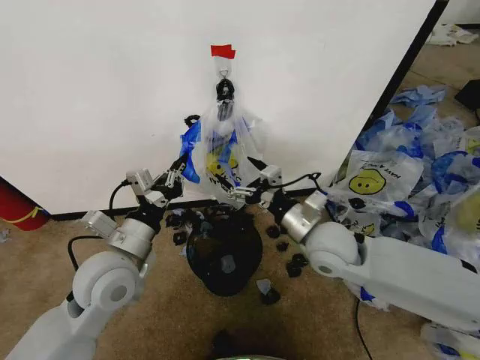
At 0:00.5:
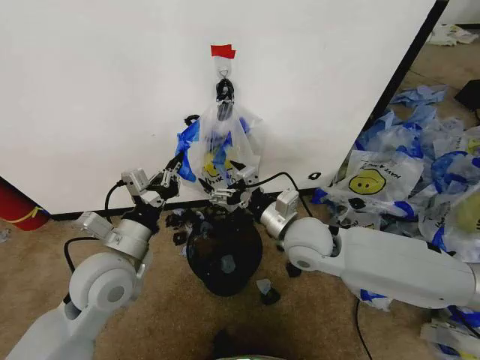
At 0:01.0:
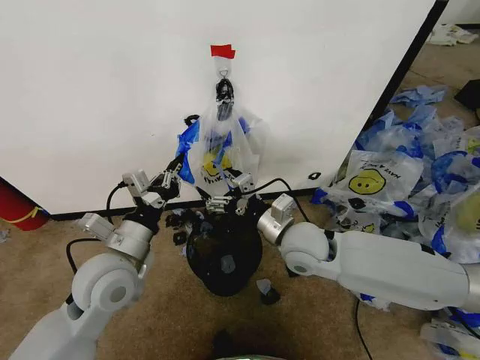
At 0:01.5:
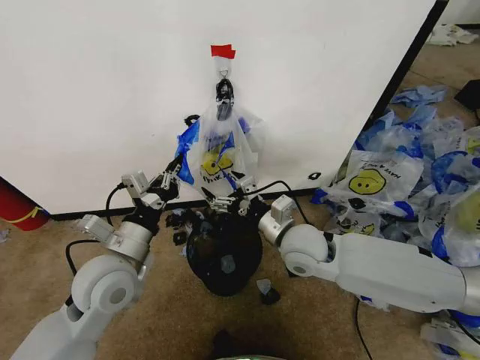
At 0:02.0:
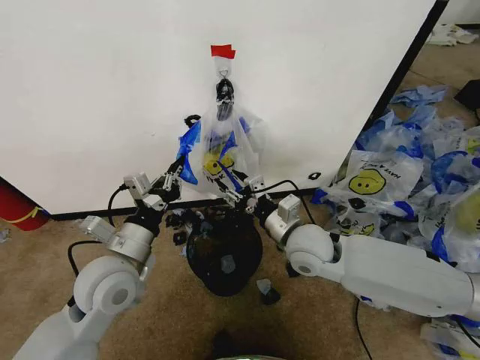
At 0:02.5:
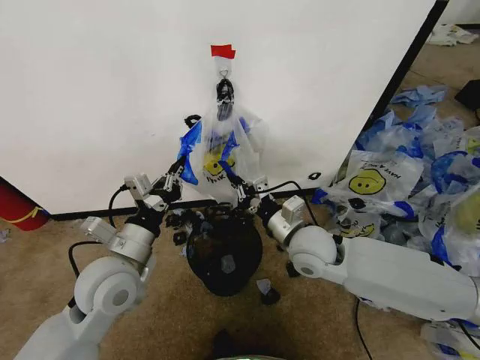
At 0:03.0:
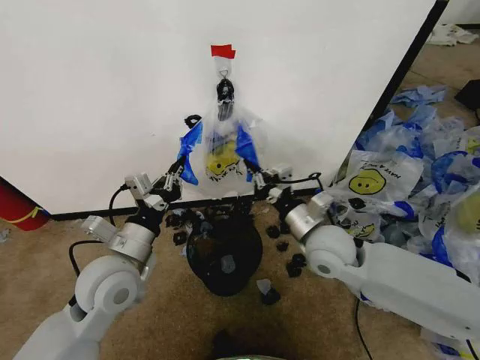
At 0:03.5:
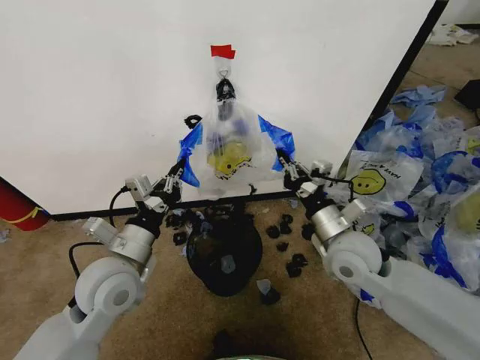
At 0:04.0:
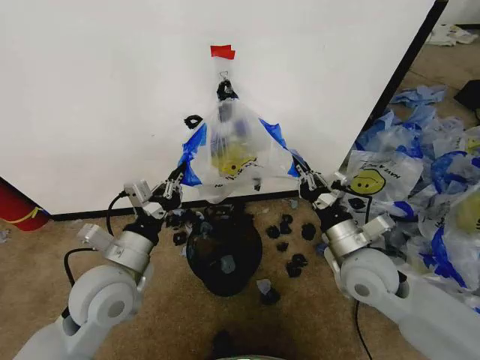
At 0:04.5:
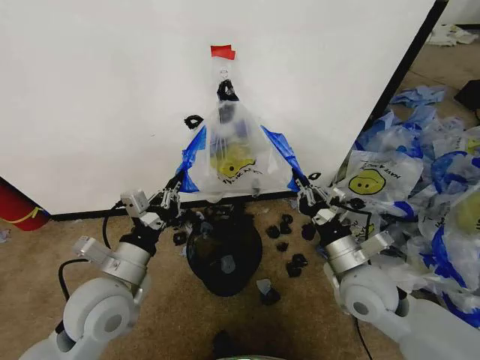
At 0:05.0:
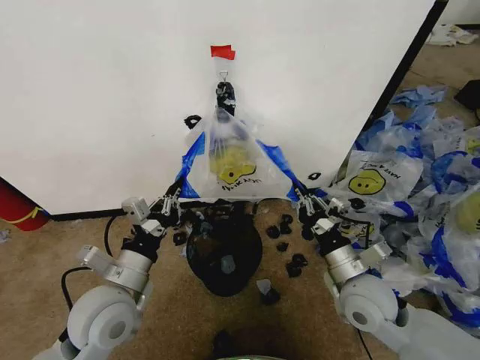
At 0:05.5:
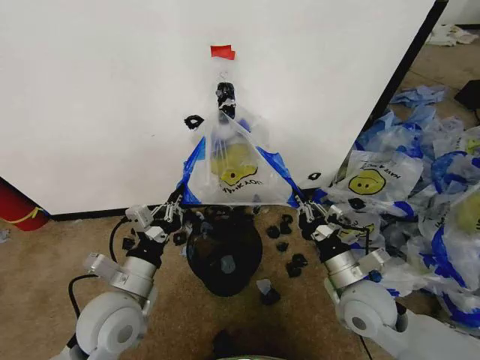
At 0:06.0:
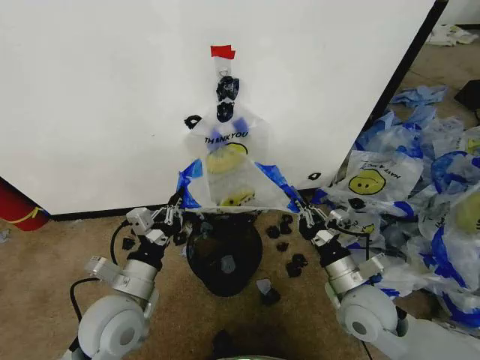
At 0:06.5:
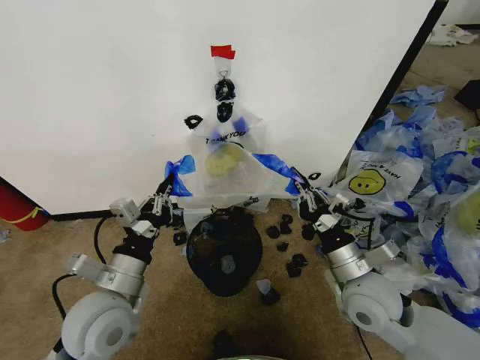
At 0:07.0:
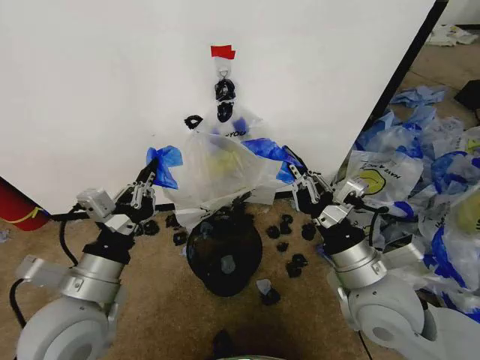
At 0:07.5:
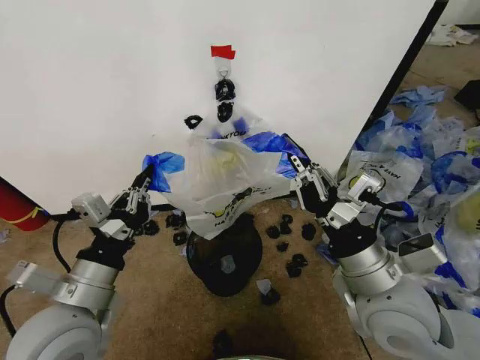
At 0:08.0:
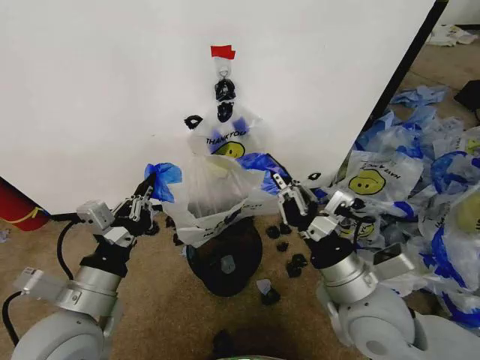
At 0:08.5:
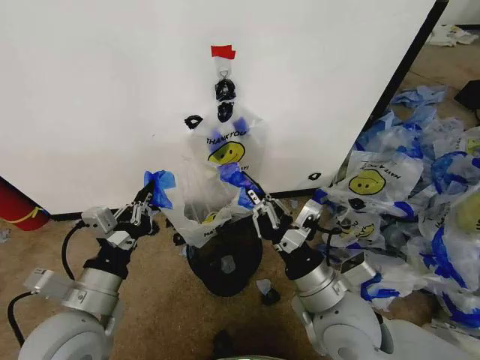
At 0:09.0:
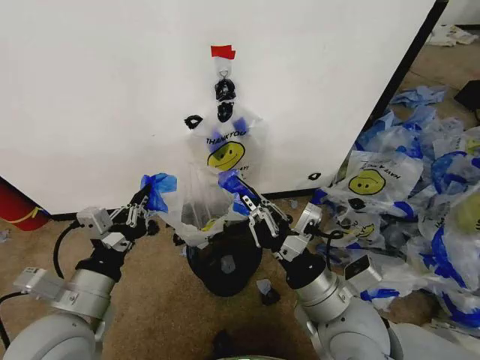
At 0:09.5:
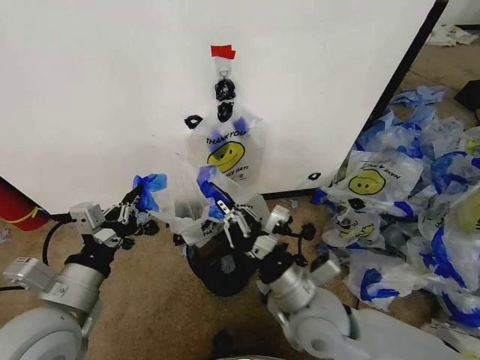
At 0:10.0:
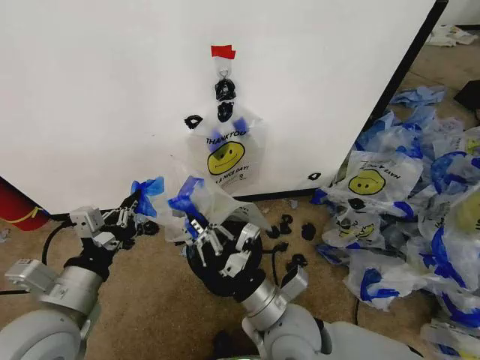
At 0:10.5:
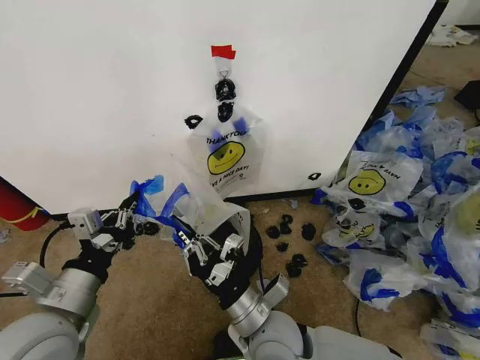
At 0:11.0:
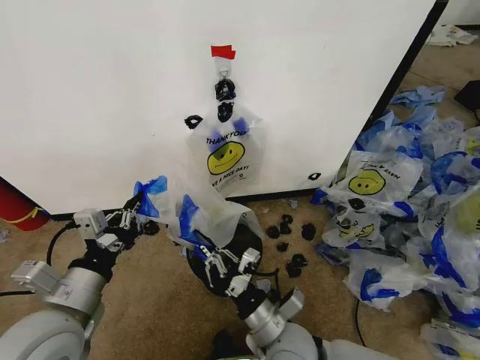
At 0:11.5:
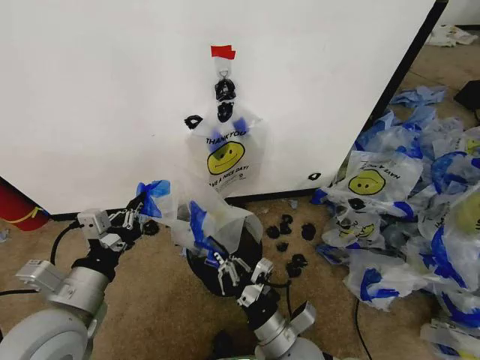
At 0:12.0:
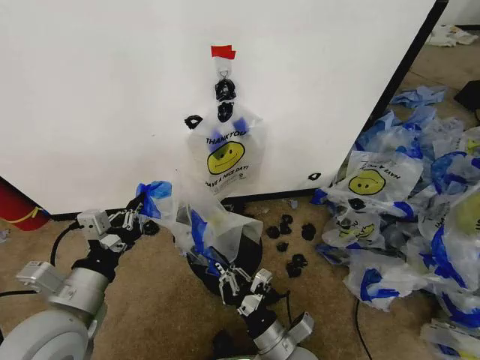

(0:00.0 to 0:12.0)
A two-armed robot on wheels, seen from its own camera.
Task of the whole recording: Pick up the garbage bag from the wall and place it over the trash bin.
0:00.0 - 0:02.0: The right gripper closes.
0:02.0 - 0:04.0: The right gripper moves to the right and backward, about 10 cm, and closes up.
0:04.0 - 0:06.0: The left gripper moves about 5 cm. Meanwhile the right gripper heads downward, covering roughly 5 cm.
0:06.0 - 0:08.0: The right gripper moves upward, some 10 cm; the left gripper shifts about 5 cm upward.
0:08.0 - 0:10.0: The right gripper is displaced to the left and downward by about 15 cm.
0:10.0 - 0:12.0: The right gripper goes some 10 cm downward.

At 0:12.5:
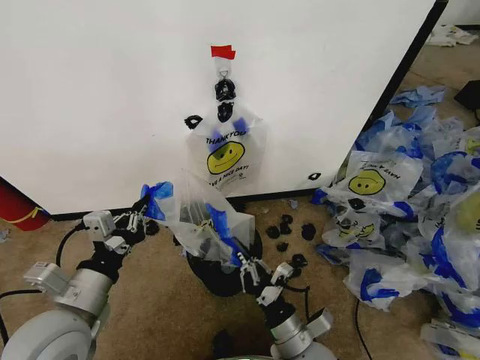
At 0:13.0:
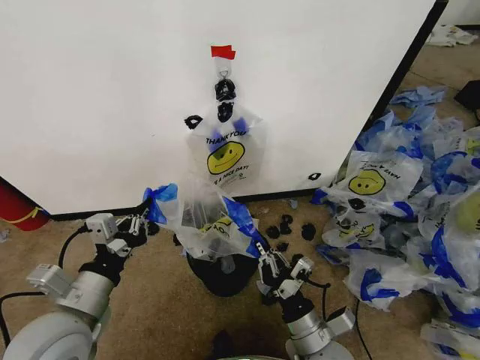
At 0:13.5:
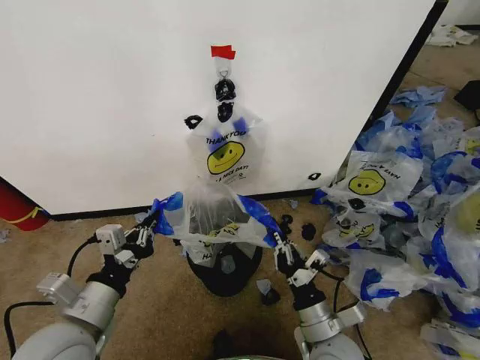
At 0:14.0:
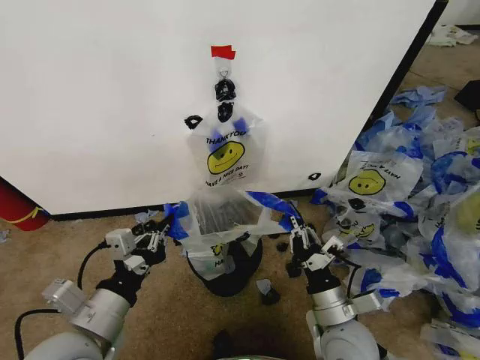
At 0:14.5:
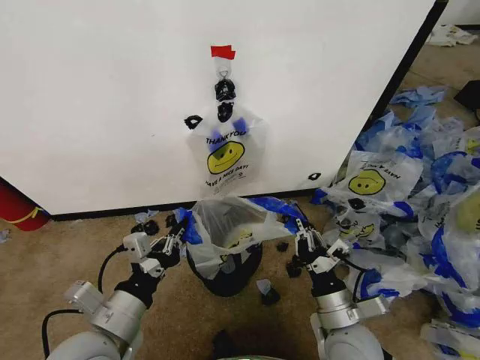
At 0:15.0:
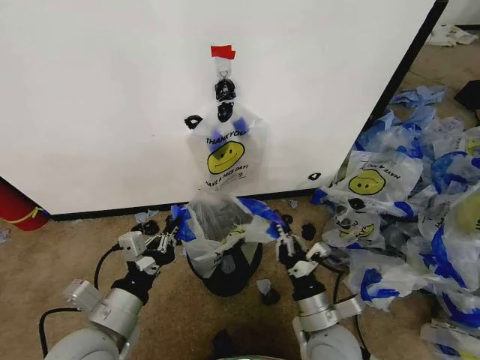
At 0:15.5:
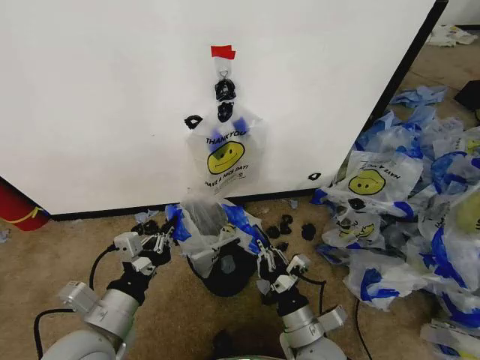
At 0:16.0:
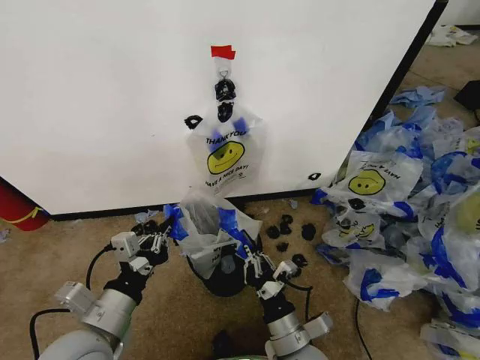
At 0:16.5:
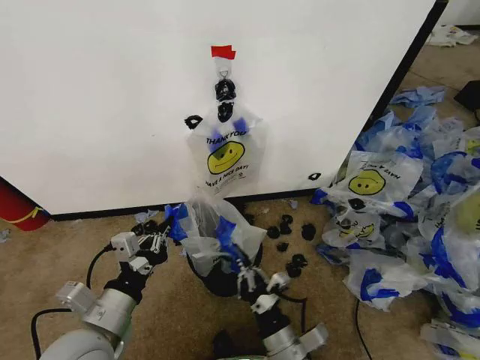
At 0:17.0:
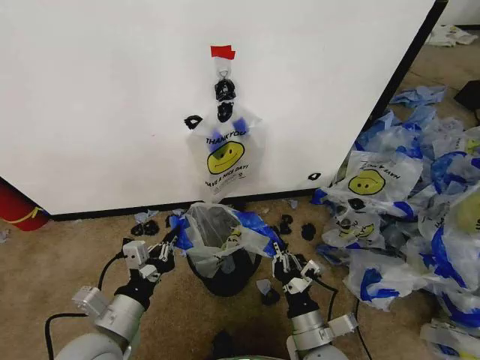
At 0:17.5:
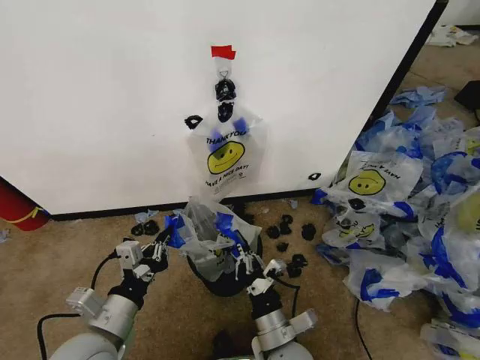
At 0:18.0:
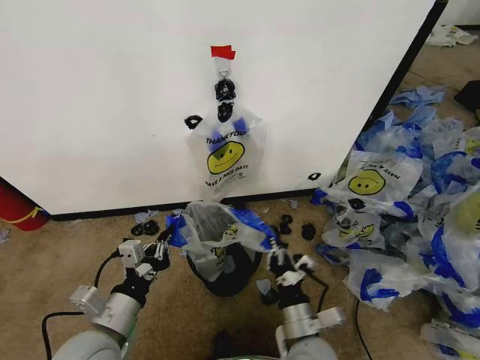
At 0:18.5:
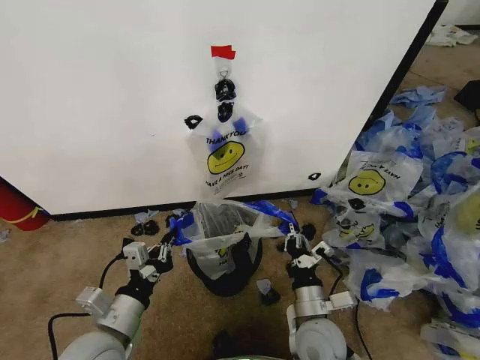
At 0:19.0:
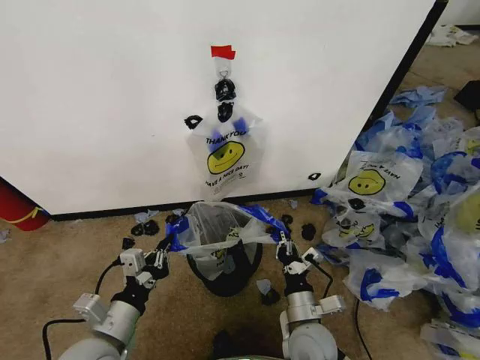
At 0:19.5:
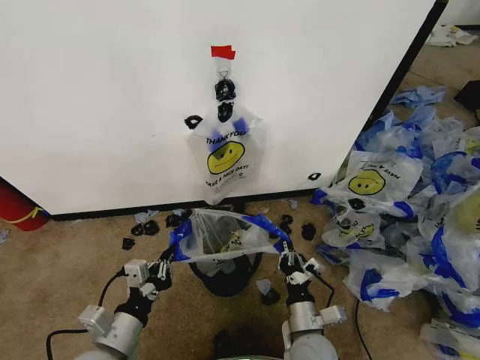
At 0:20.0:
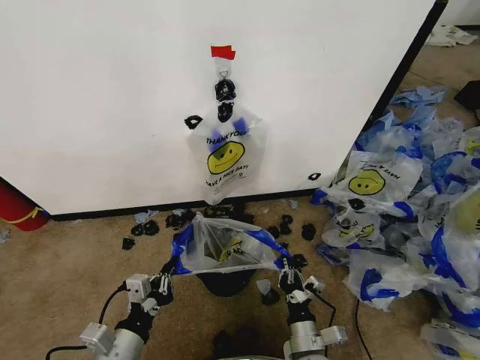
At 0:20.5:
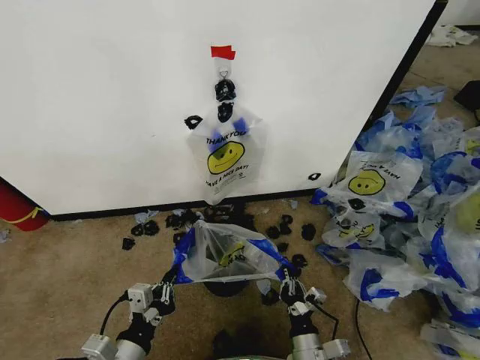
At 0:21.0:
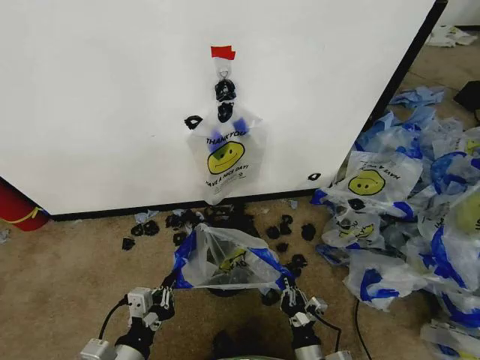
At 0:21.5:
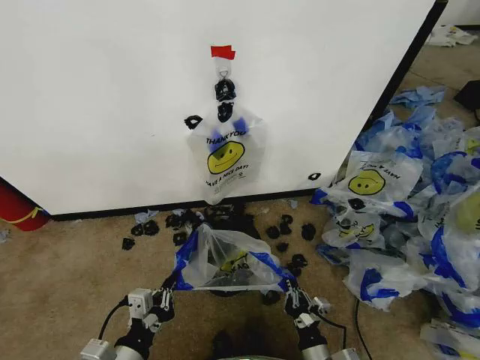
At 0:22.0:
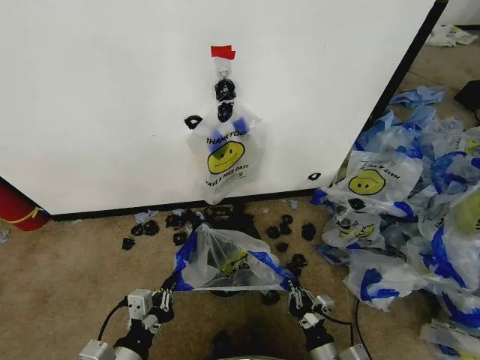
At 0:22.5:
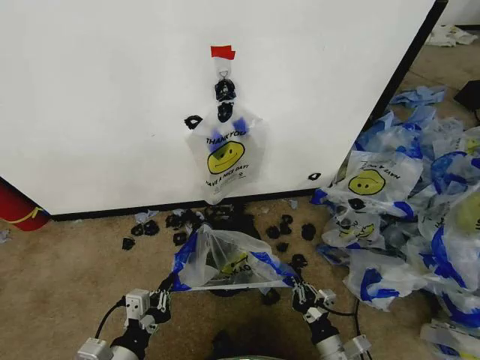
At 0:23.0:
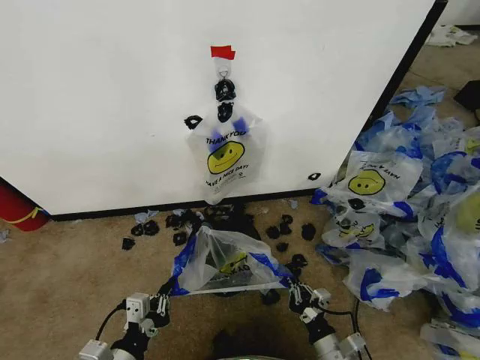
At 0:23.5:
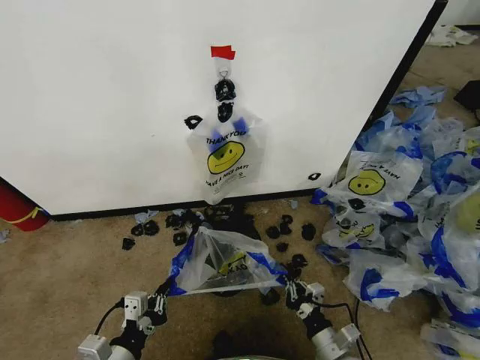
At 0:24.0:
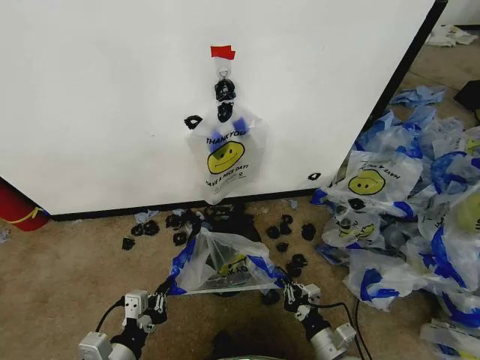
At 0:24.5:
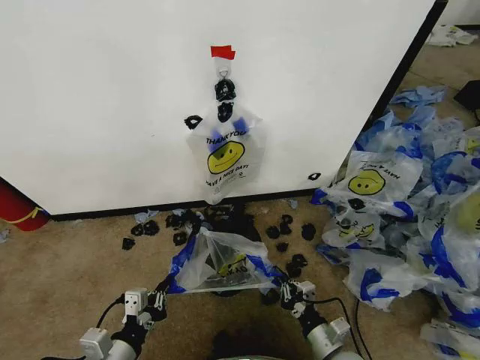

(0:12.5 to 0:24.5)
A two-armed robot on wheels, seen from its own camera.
Task of the whole recording: Pick up the garbage bag from the wall and place it over the trash bin.
0:12.5 - 0:14.5: The left gripper moves about 5 cm; the right gripper is displaced to the right by roughly 5 cm.
0:14.5 - 0:16.5: The right gripper heads to the left and backward, covering approximately 10 cm.
0:16.5 - 0:18.5: The right gripper moves forward, approximately 5 cm.
0:18.5 - 0:20.5: The right gripper shifts about 10 cm downward and backward, while the left gripper travels backward by about 5 cm.
0:20.5 - 0:22.5: The right gripper travels to the right by some 10 cm.
0:22.5 - 0:24.5: The grippers make only small movements.

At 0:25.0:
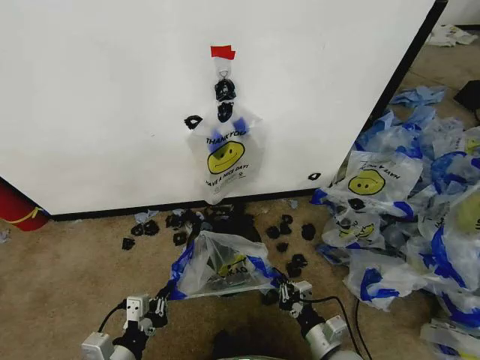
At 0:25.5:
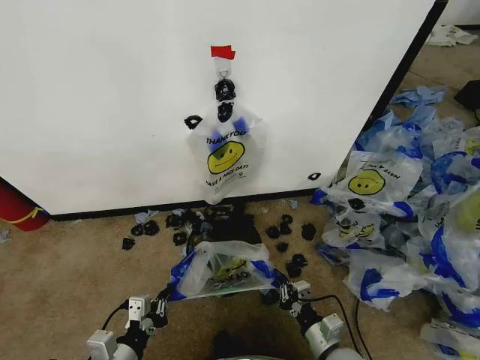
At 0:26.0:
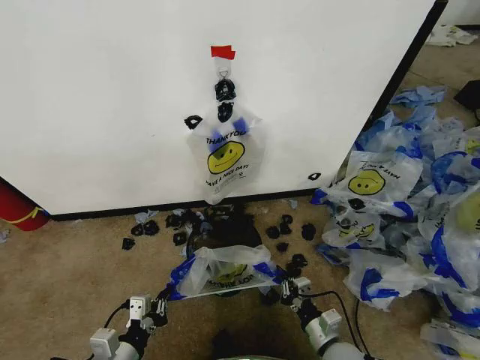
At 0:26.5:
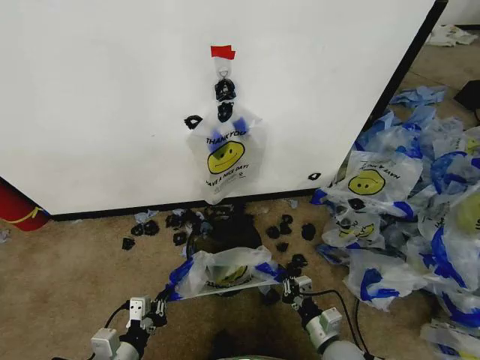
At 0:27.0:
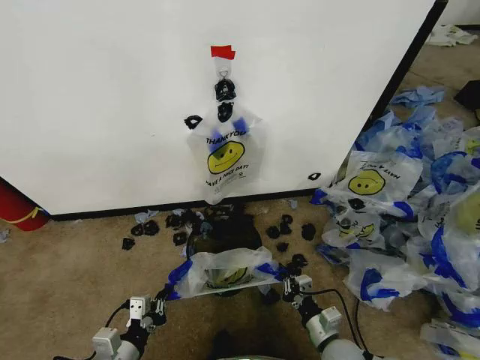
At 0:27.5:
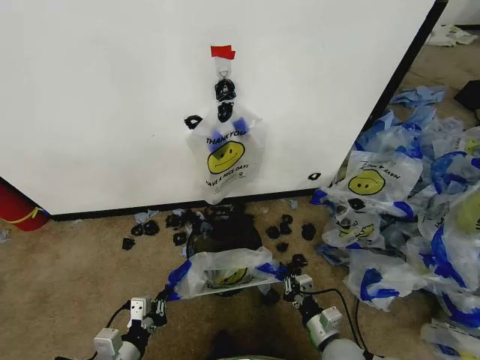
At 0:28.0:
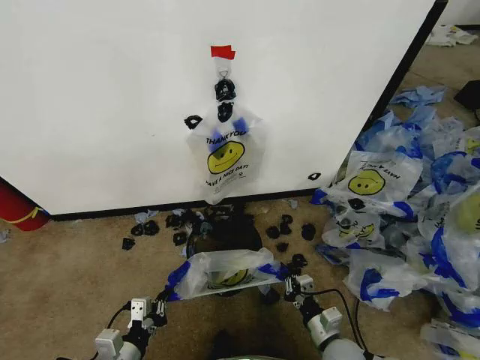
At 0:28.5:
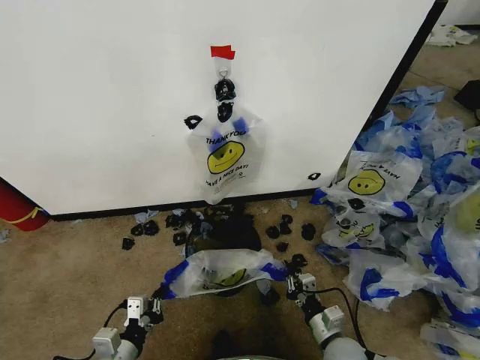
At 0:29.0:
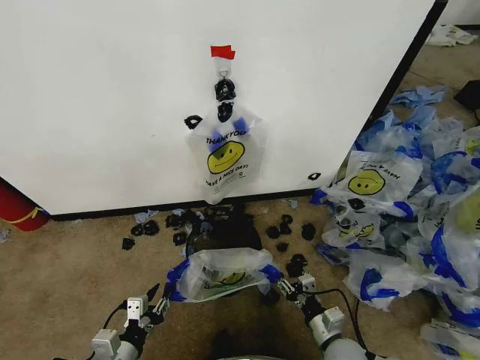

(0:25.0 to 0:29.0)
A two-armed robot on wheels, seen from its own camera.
Task of the whole recording: Pick up the garbage bag from the wall and place it over the trash bin.
0:25.0 - 0:27.0: There are only small adjustments of the grippers.
0:27.0 - 0:29.0: The left gripper opens; the right gripper opens its fingers.
